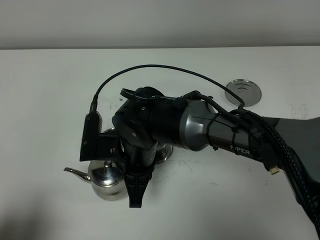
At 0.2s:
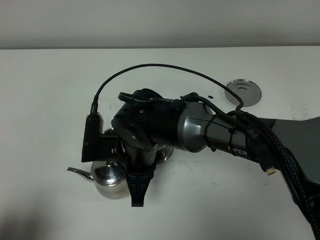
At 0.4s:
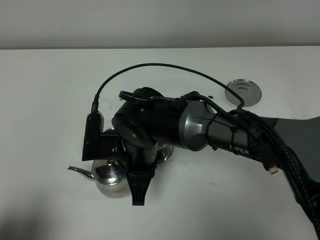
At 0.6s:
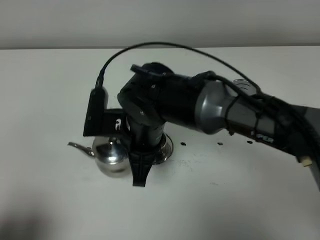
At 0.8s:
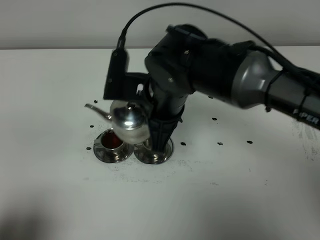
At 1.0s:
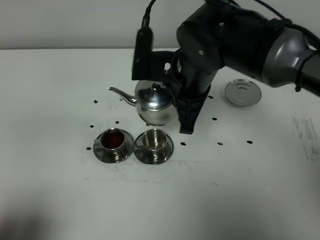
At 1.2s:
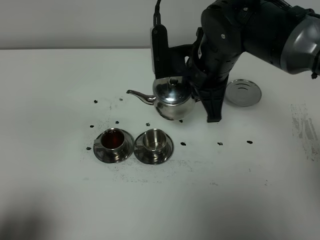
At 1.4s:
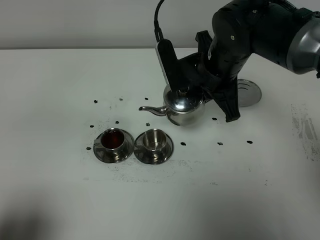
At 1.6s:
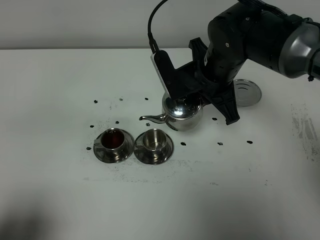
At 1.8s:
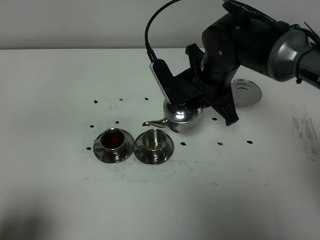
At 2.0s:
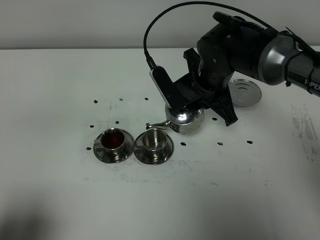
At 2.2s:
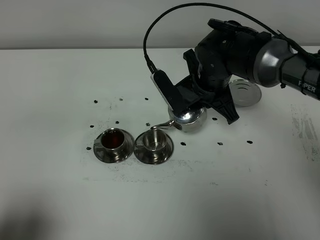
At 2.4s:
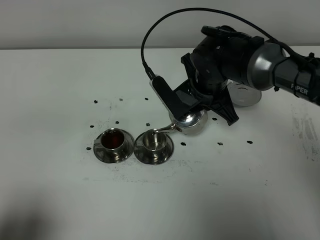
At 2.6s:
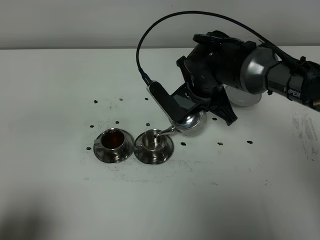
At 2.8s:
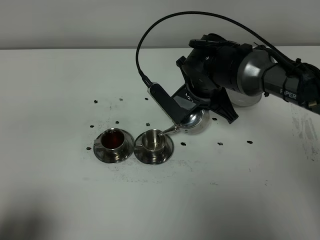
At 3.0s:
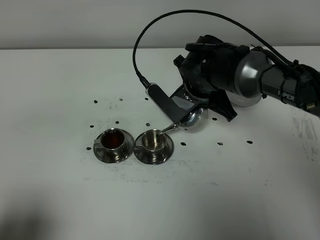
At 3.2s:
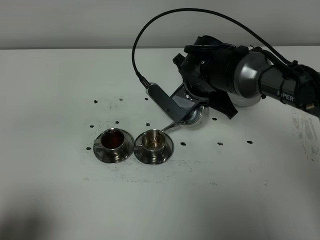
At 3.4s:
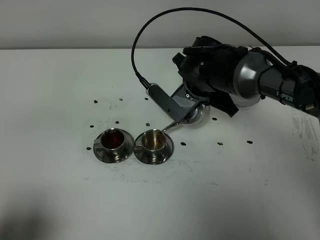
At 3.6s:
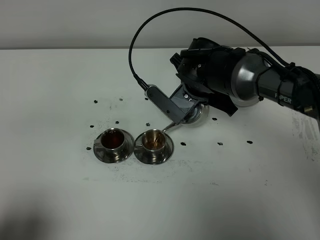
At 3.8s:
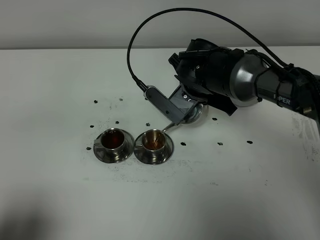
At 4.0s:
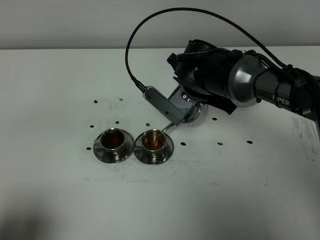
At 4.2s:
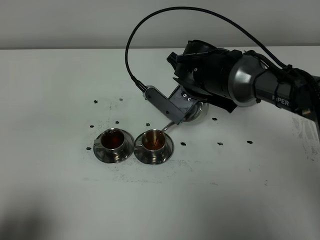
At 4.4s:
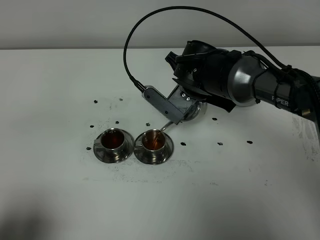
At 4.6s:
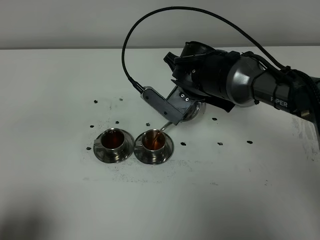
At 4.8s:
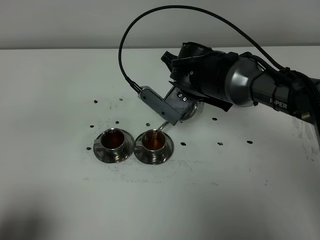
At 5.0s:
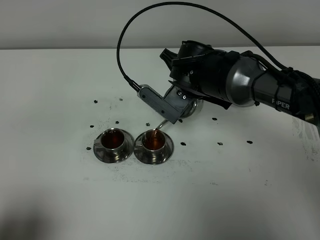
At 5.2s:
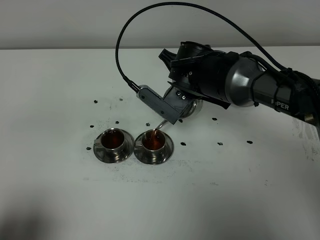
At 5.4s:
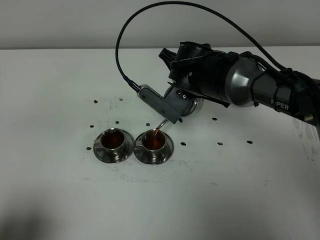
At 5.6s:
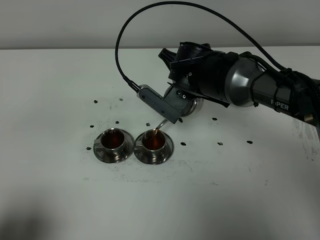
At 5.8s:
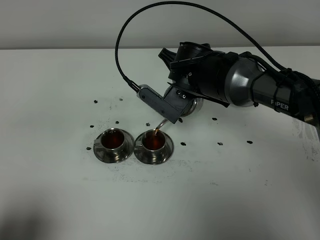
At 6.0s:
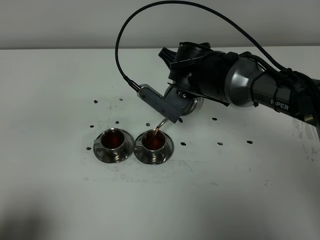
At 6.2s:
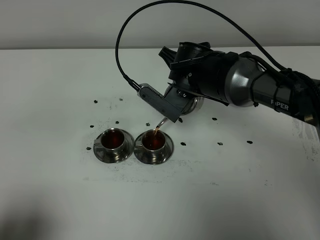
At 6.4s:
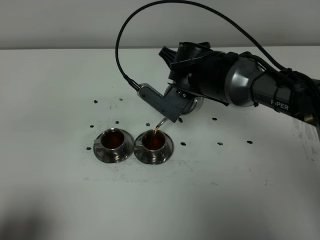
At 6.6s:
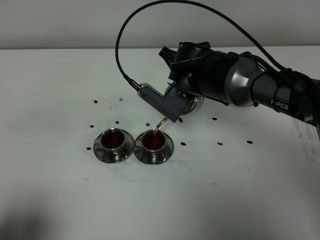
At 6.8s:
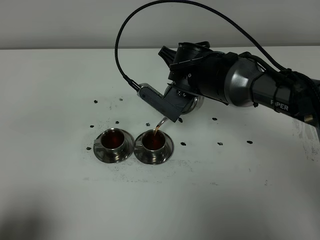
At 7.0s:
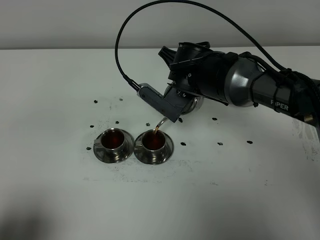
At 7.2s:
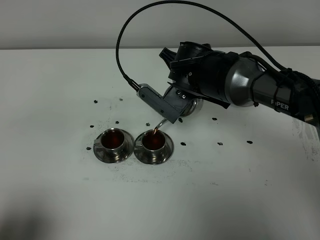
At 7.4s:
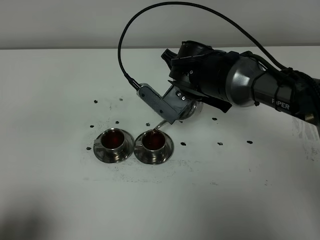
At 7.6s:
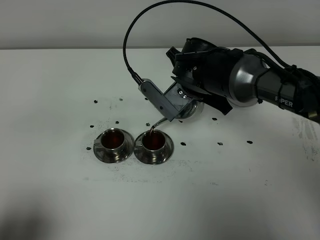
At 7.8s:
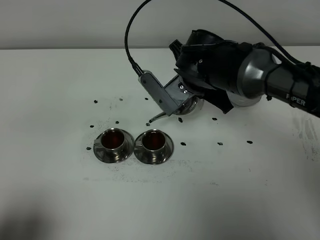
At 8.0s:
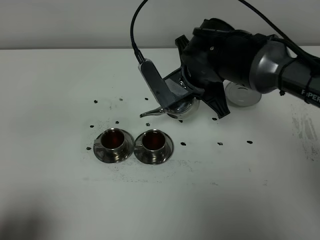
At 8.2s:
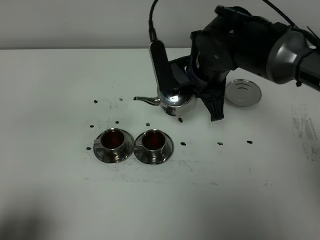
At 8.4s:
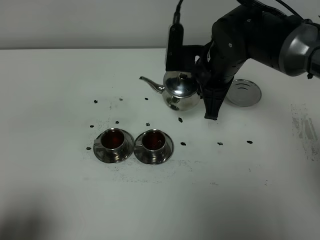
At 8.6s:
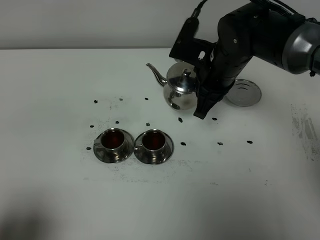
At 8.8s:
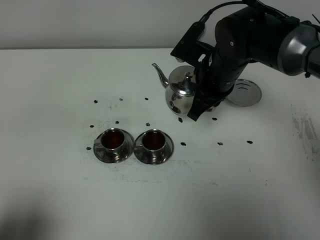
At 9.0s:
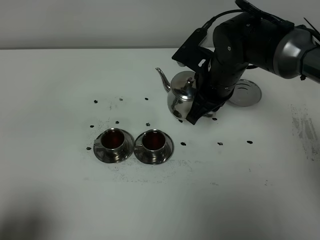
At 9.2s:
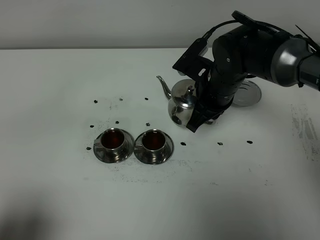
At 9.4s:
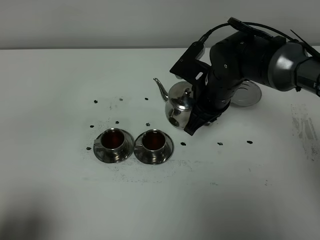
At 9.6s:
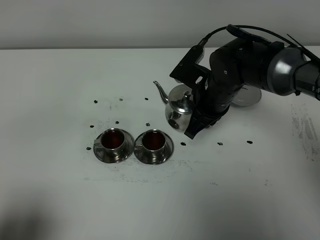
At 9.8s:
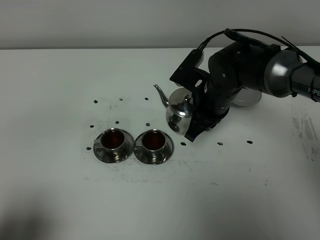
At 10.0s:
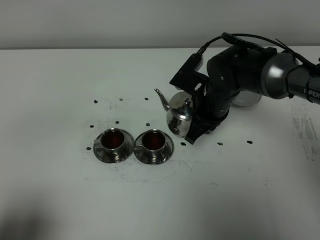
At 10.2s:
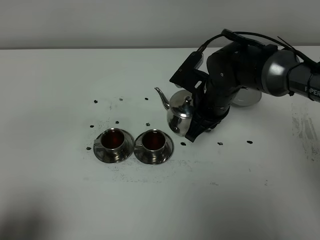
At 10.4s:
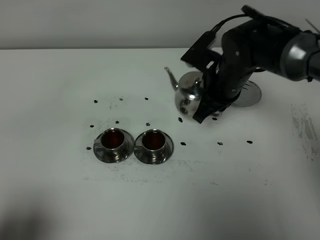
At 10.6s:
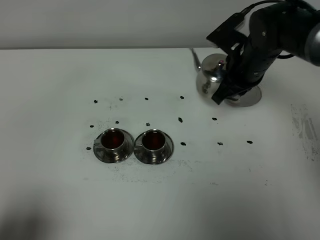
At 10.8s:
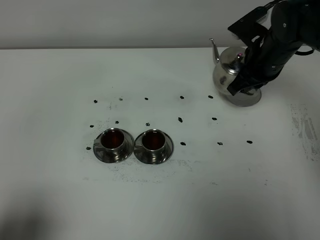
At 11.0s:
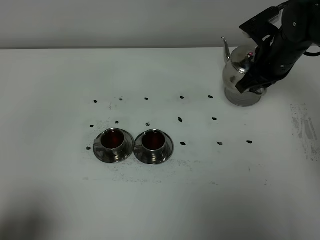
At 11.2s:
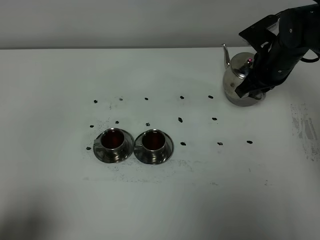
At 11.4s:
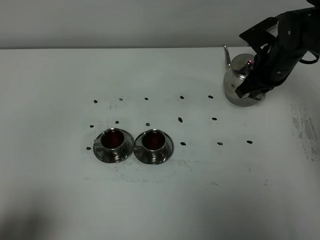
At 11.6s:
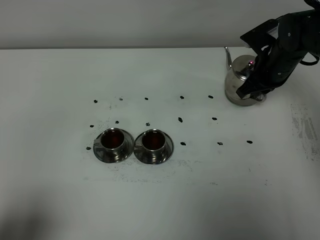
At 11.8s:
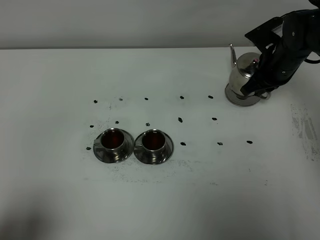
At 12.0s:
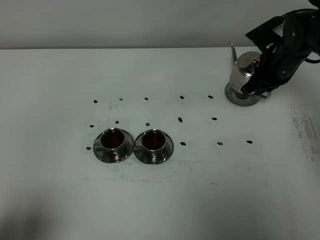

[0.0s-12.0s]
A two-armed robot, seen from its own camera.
Task of the whole recording: grasp the stainless steel teapot and pour the tea into the two stainless steel teacups one by one, put the stainless steel teapot back in its original place.
Step, 0.0s to 7.6s: Pour tea into the teacup with the right gripper.
0.0s to 1.6s: The right gripper heads to the right, forward and upward, covering some 20 cm.
1.6s to 3.0s: The right gripper is displaced downward by about 5 cm.
3.0s to 7.6s: The grippers stay close to where they were, moving slightly.
9.0s to 10.4s: The grippers make only small movements.
10.4s to 12.0s: The right gripper travels to the right and forward by approximately 15 cm.

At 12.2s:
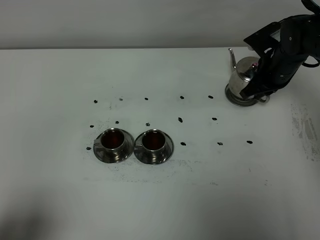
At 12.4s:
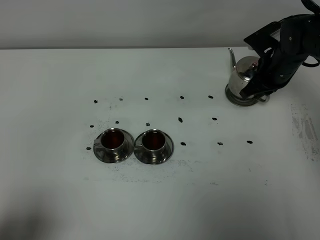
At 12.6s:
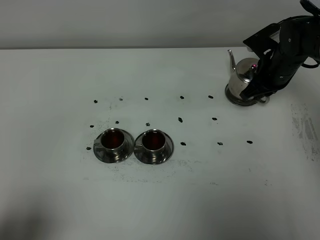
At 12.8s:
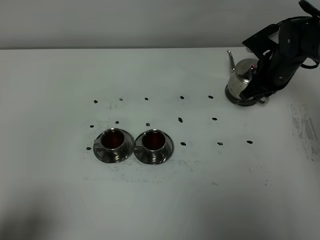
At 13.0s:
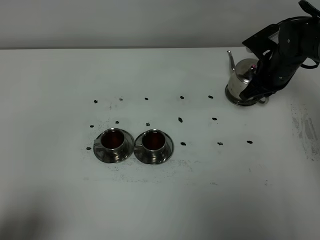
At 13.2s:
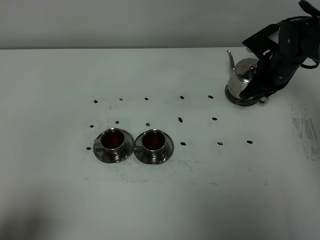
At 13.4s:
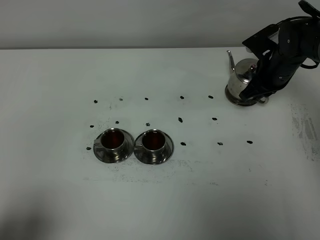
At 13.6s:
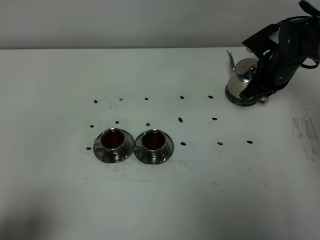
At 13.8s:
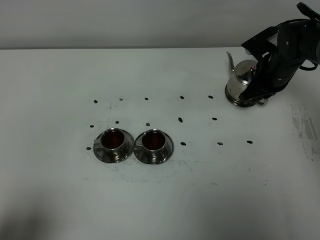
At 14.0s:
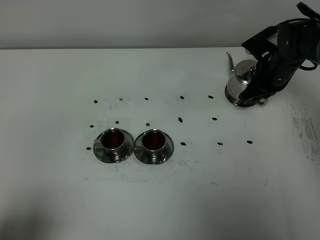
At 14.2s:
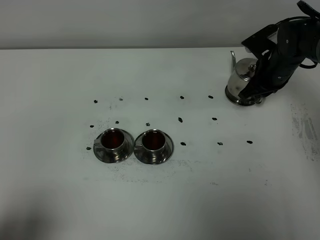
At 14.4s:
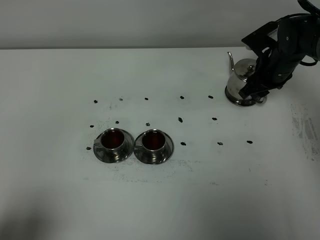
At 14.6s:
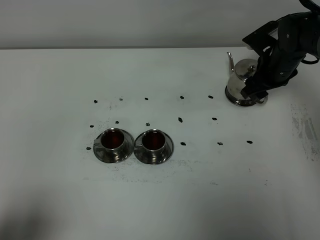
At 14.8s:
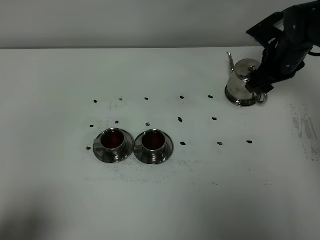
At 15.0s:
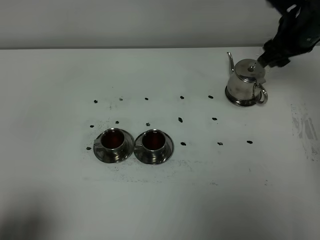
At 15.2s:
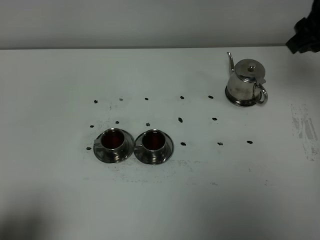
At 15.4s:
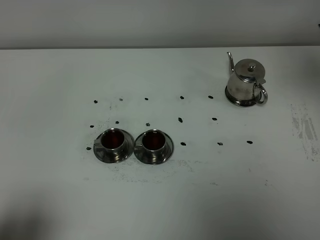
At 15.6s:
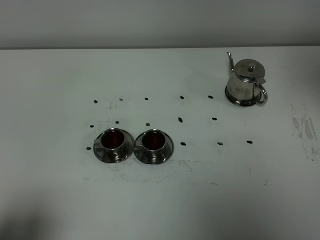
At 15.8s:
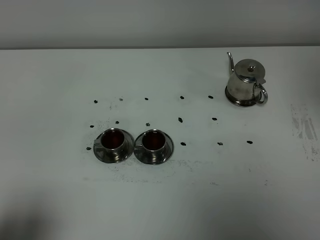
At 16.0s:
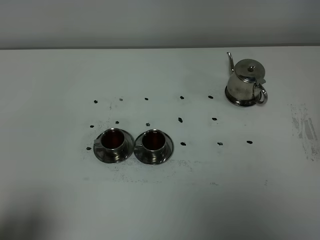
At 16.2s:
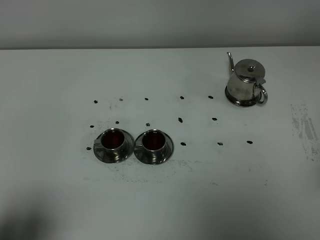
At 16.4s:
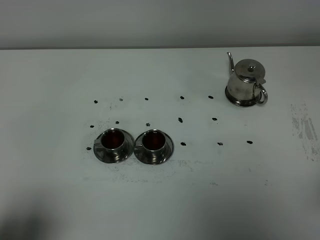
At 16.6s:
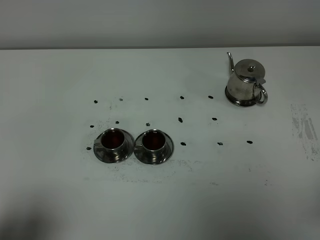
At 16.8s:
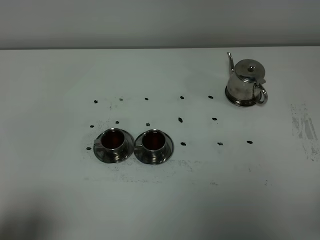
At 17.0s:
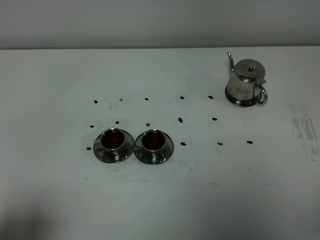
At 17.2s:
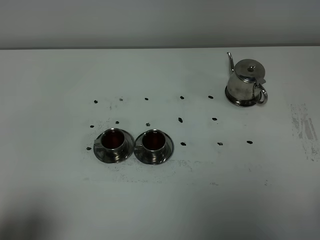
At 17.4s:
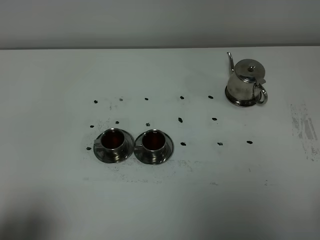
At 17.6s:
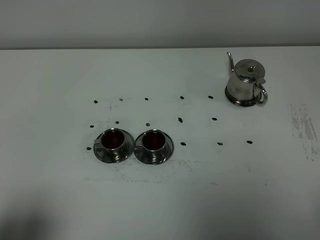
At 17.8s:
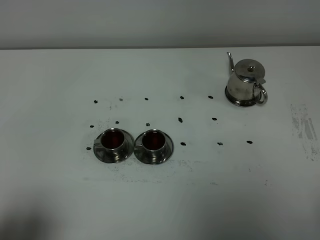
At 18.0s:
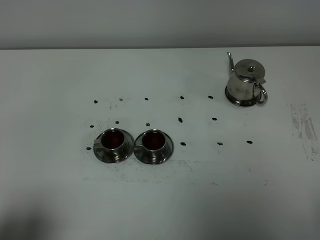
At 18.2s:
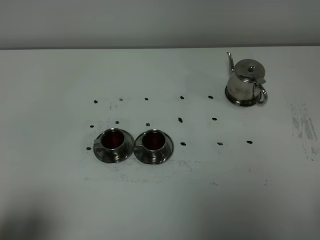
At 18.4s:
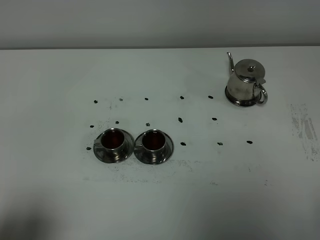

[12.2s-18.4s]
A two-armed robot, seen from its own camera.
Task of the whole recording: grasp the stainless steel teapot and pour the tea into the two stainless steel teacups one by one, put the stainless steel teapot back in its original place.
12.2s to 13.8s: Both grippers stay about where they are.
13.8s to 15.4s: The right gripper moves upward and backward, about 30 cm, and opens its fingers.
15.4s to 16.8s: The right gripper shifts roughly 30 cm backward and downward, and closes its fingers.

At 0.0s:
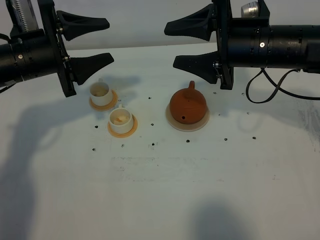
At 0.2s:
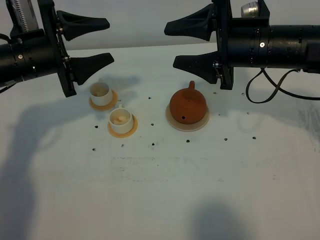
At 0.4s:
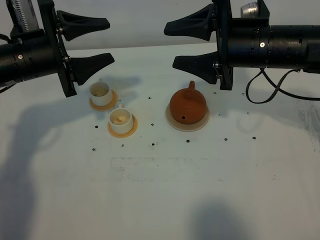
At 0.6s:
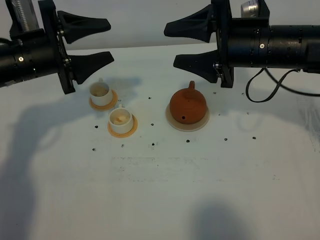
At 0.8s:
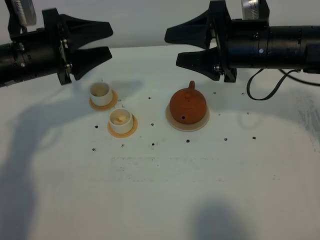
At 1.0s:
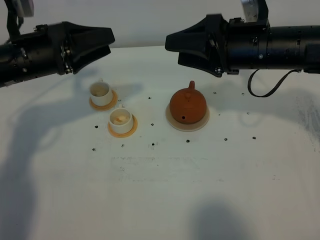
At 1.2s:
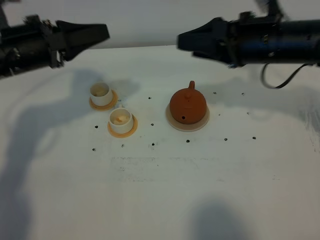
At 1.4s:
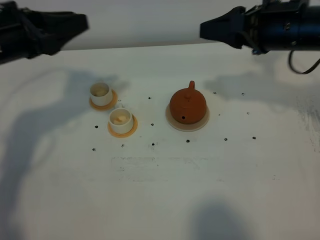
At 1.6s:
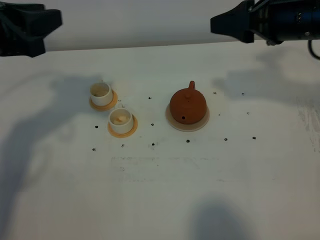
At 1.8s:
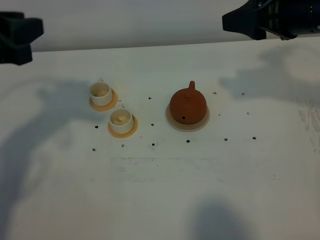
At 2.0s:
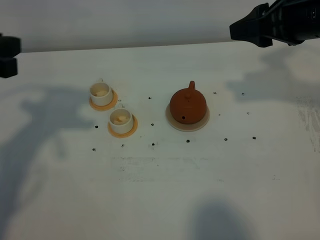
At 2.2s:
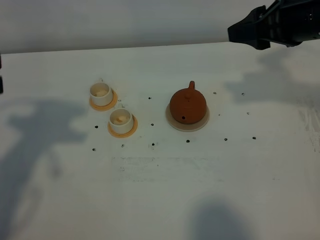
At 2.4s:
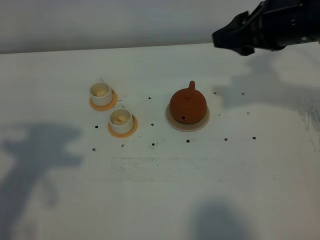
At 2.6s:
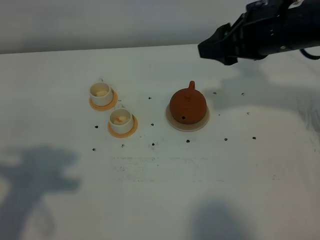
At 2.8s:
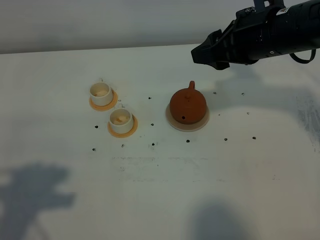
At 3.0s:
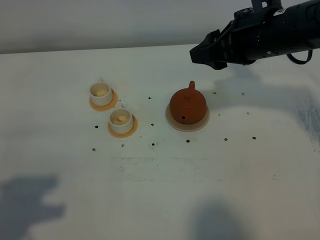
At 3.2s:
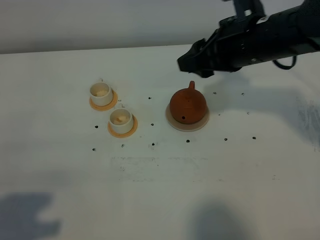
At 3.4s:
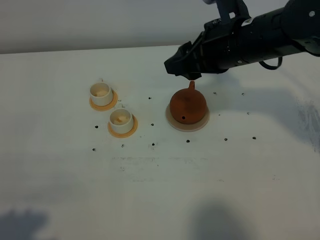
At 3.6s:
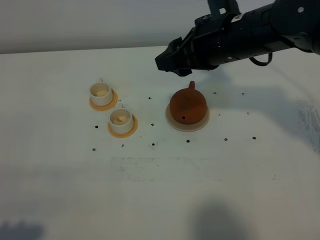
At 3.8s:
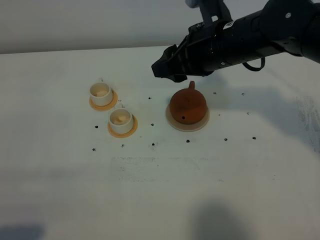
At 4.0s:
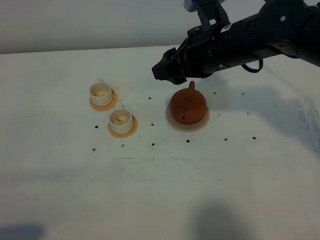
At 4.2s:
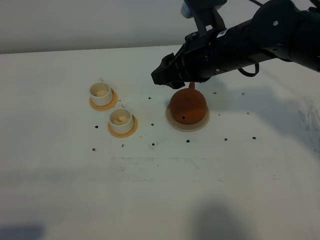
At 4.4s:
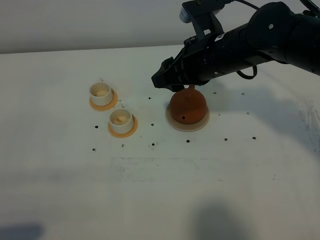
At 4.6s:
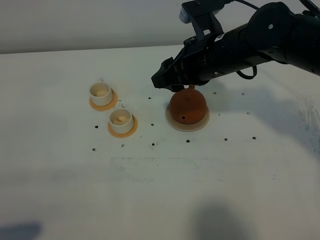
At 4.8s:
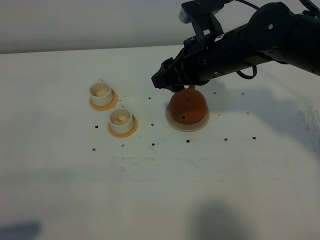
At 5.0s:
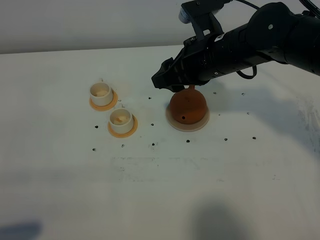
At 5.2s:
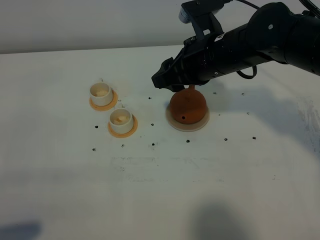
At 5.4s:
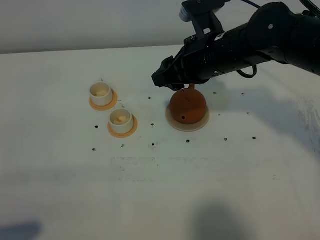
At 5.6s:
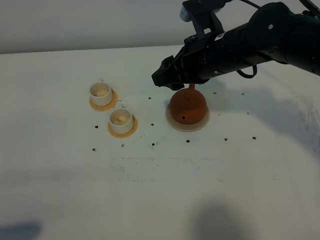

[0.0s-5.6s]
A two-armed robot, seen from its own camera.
Task of the whole recording: grasp the brown teapot and pour the tea into the two white teacups one by one, put the brown teapot back in its original place.
0.0s to 1.4s: The left gripper moves upward, some 5 cm, and closes up; the right gripper moves roughly 5 cm.
1.4s to 2.8s: The left gripper travels backward by approximately 20 cm, and closes up.
2.8s to 4.2s: The left gripper is displaced backward by some 10 cm; the right gripper moves to the left, about 5 cm.
4.2s to 5.6s: The grippers move only a little.
